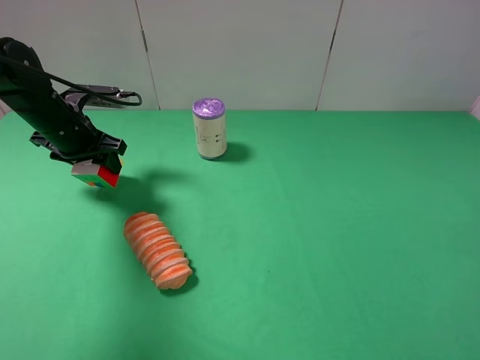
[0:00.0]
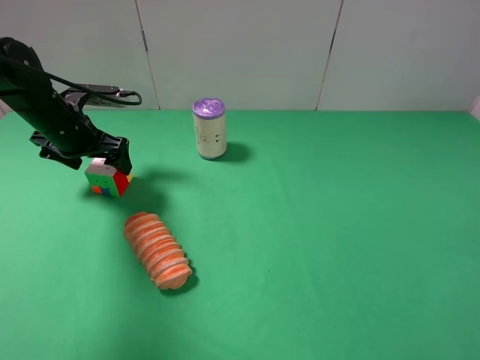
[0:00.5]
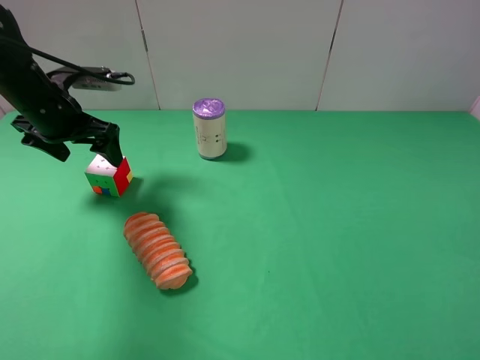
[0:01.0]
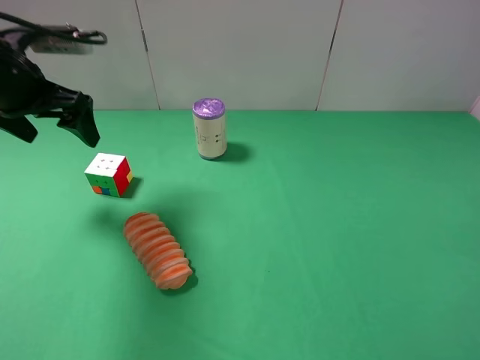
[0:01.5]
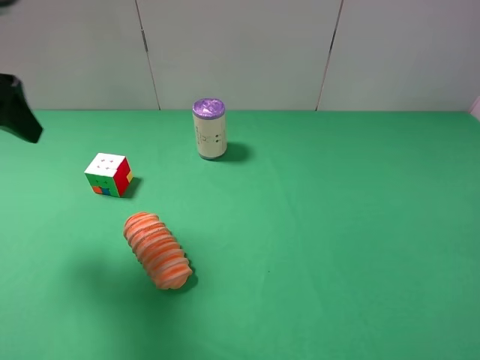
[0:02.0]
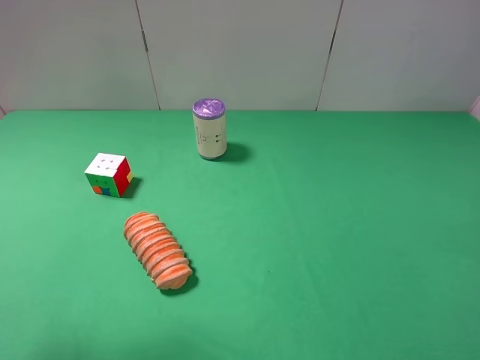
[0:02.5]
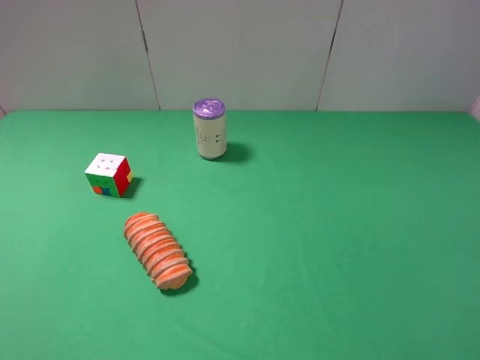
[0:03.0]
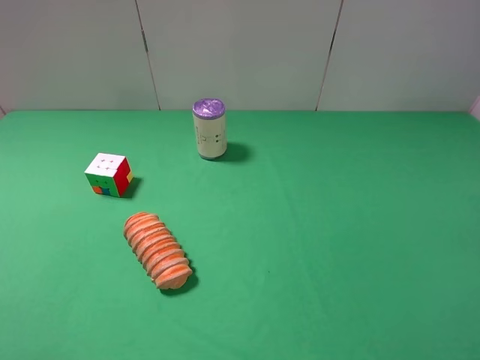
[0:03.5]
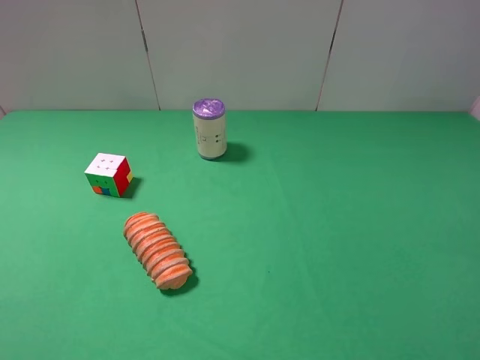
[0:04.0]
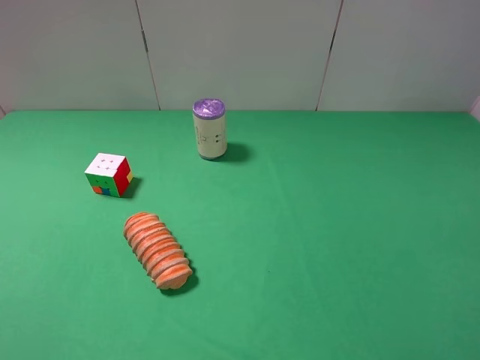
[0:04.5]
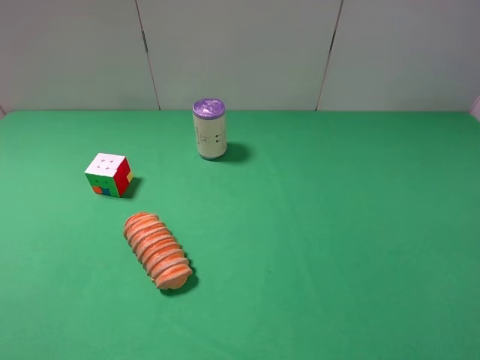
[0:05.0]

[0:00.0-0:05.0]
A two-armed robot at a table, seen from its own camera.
Task of the whole recording: use the right gripper to pick up the item and transfer it from the right gripper to the left gripper.
0:00.0 to 0:02.5: The left gripper is displaced backward and upward by some 35 cm, and opens up.
